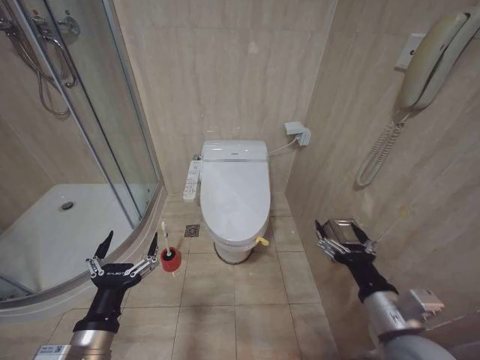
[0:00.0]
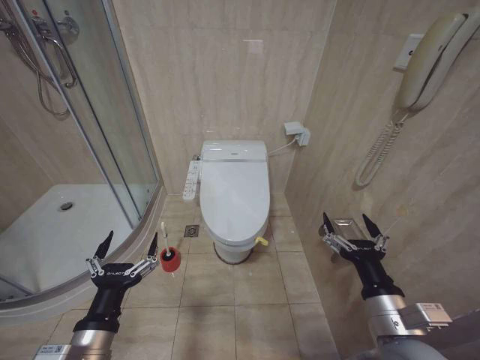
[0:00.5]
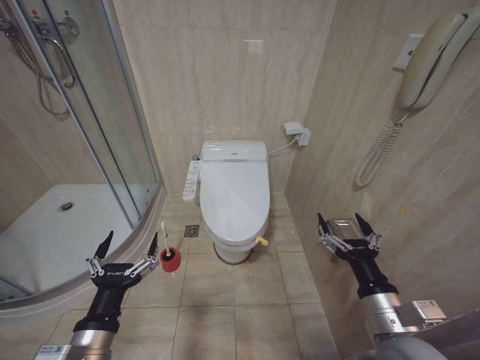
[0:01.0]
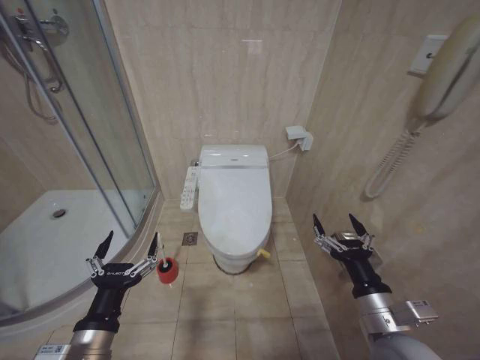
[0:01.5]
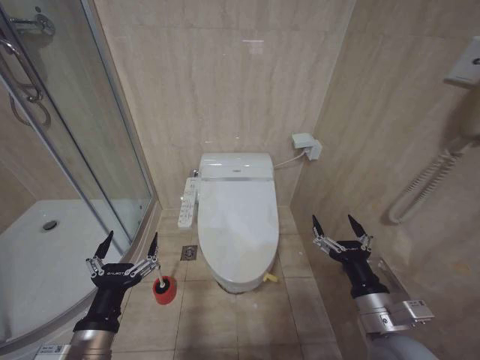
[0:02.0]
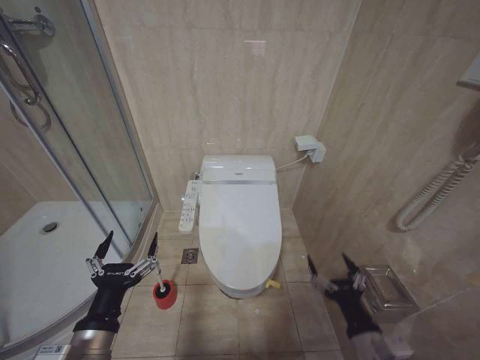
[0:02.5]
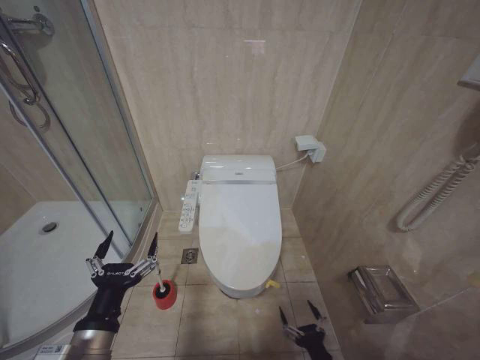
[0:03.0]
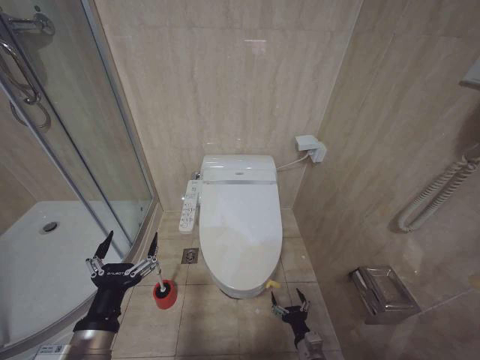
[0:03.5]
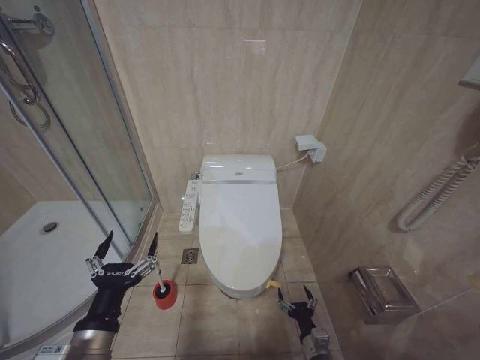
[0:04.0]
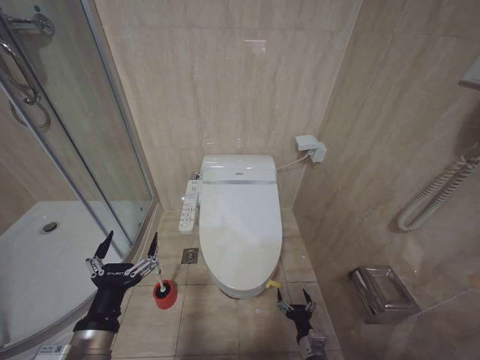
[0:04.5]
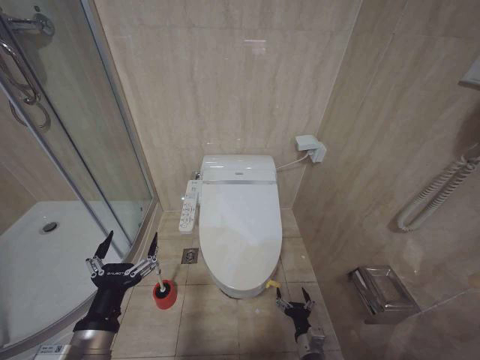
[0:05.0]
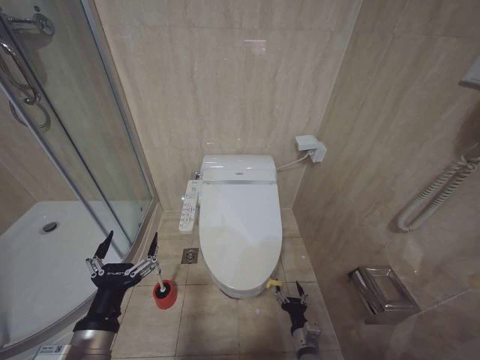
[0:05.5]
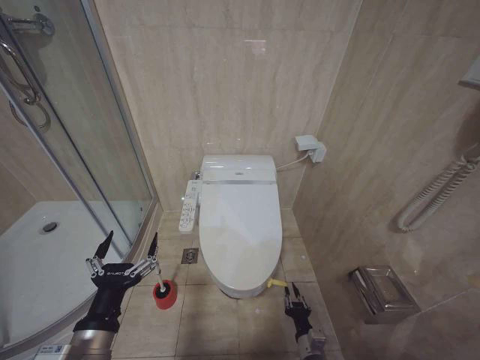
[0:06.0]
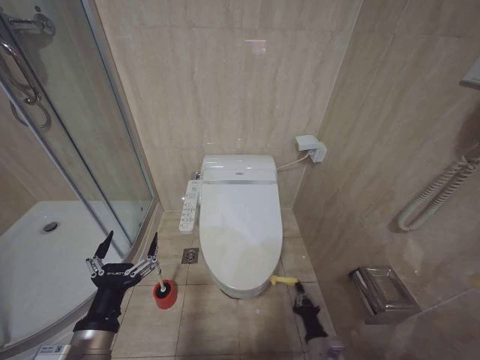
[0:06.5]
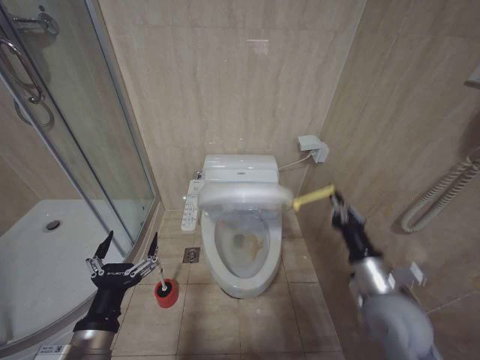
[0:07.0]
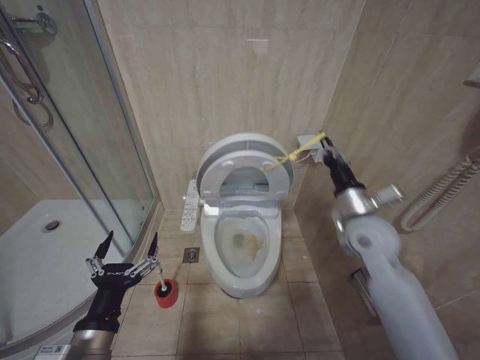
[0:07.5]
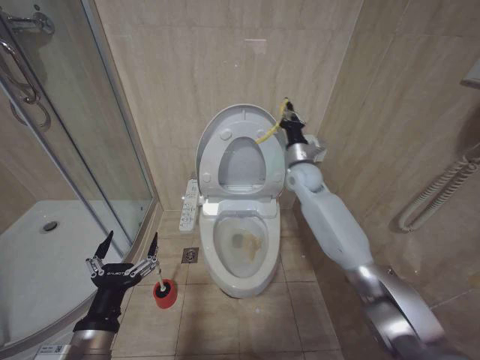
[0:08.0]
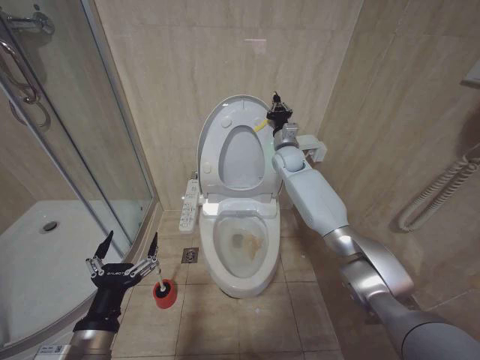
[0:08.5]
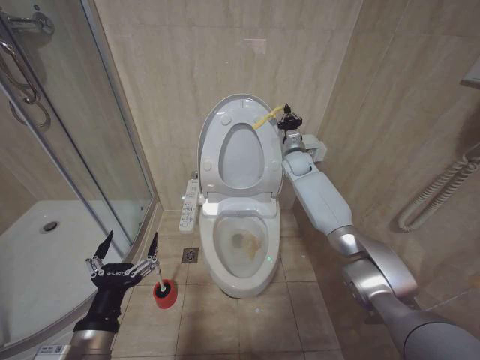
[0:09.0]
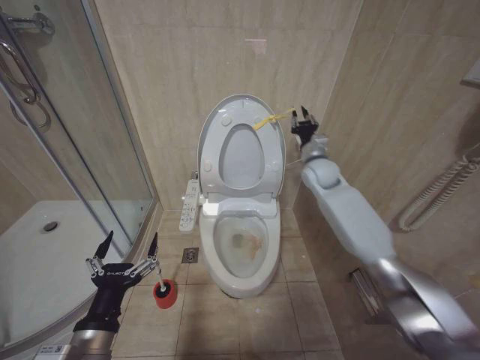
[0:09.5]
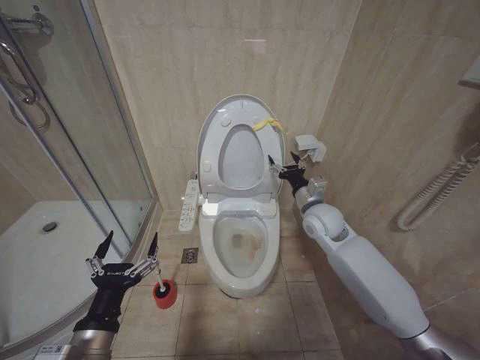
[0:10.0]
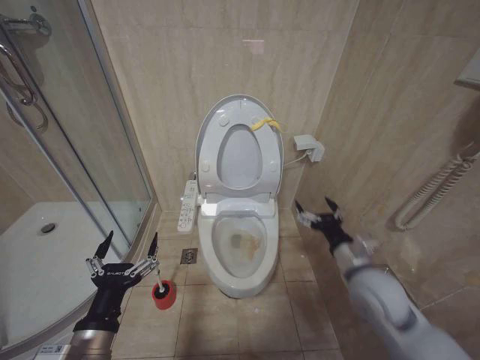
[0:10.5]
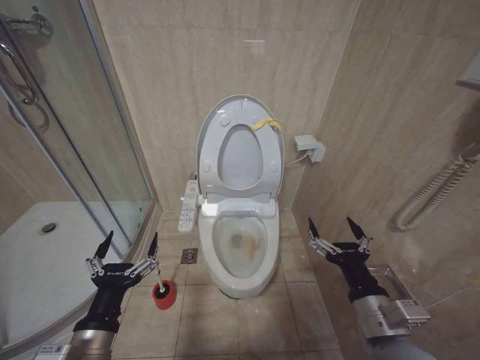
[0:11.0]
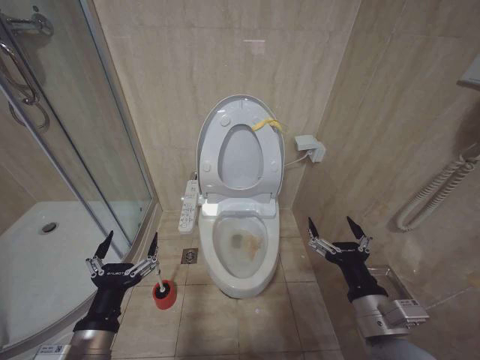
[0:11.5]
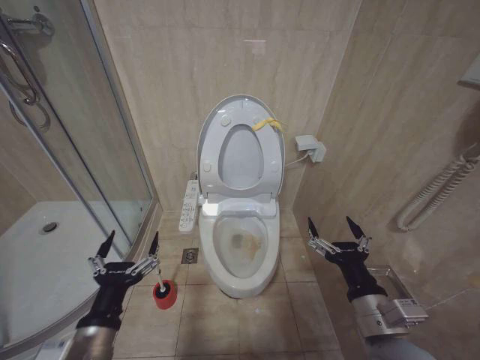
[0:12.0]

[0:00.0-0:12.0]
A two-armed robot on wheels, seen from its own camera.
Task of the whole recording: Open the toilet lid, clean the toilet bowl with a toilet brush, close the toilet lid, and flush.
2.0 to 4.0 s: The right gripper goes about 30 cm downward.
6.0 to 8.0 s: The right gripper is displaced upward and forward by some 50 cm, and closes up.
8.0 to 10.0 s: The right gripper goes about 10 cm backward and downward, and opens up.
10.0 to 12.0 s: The right gripper shifts approximately 30 cm backward.

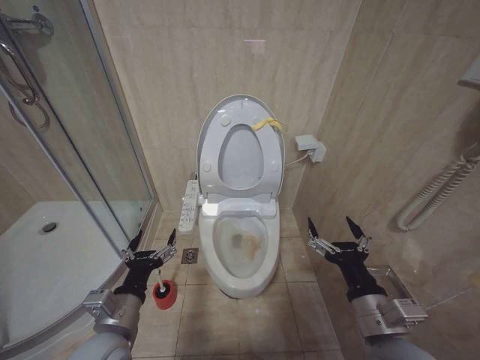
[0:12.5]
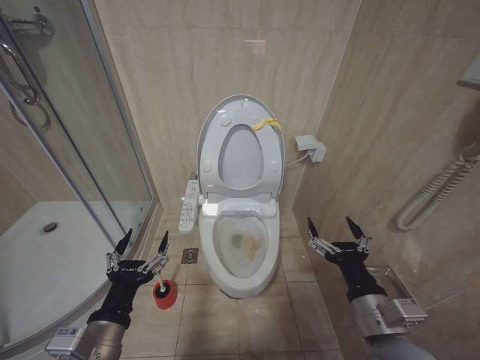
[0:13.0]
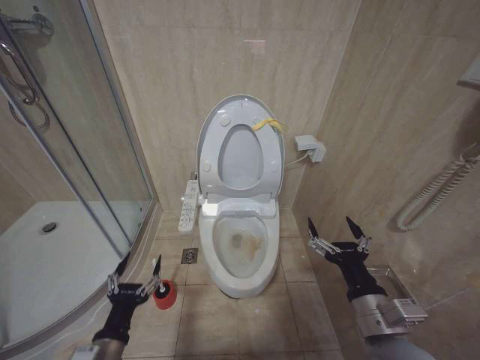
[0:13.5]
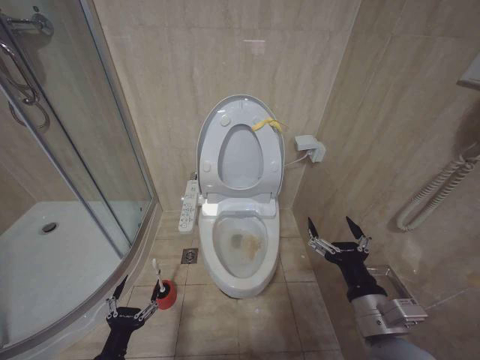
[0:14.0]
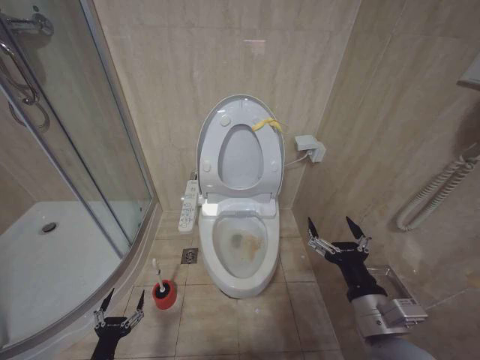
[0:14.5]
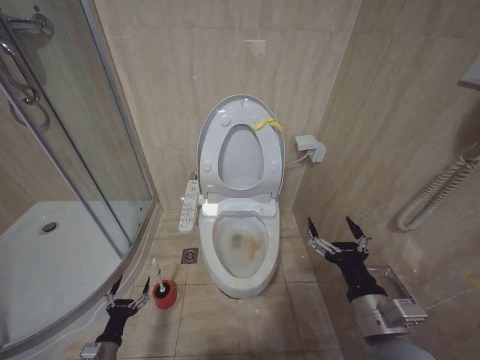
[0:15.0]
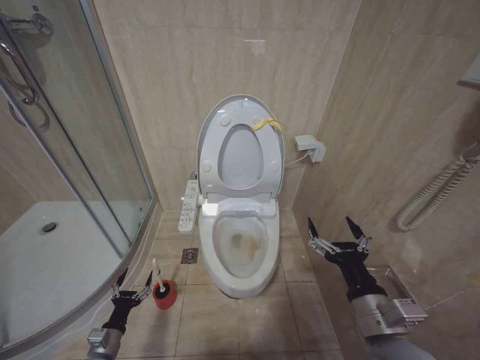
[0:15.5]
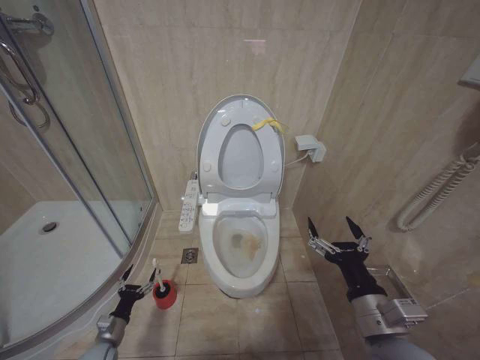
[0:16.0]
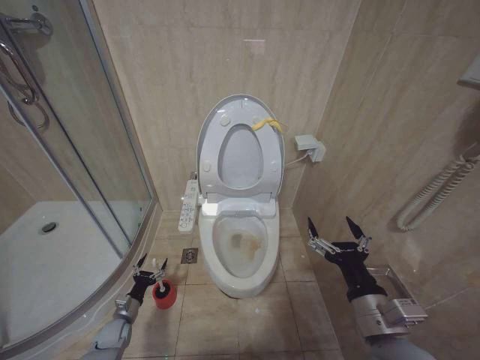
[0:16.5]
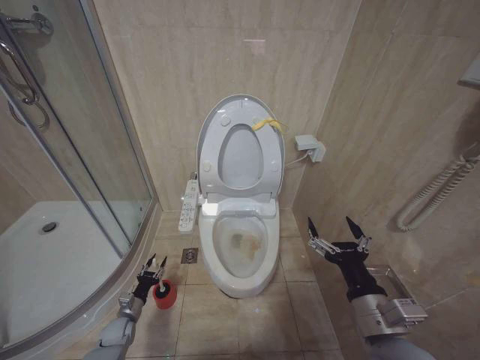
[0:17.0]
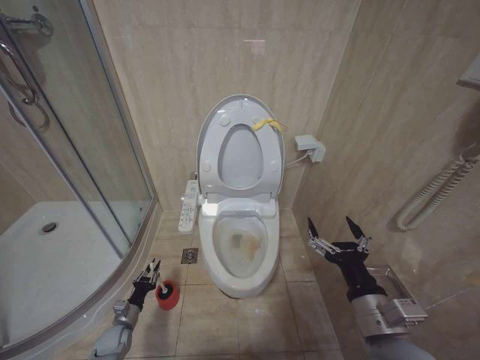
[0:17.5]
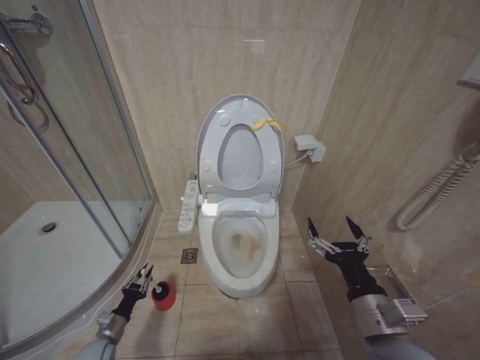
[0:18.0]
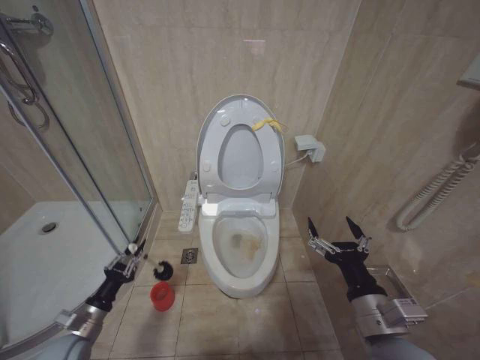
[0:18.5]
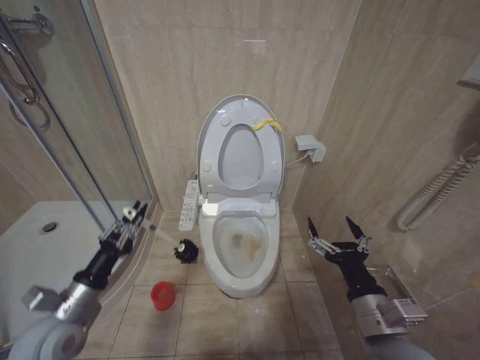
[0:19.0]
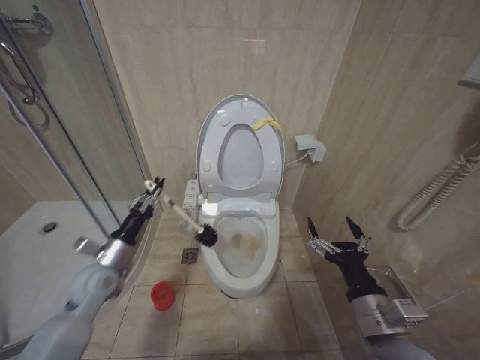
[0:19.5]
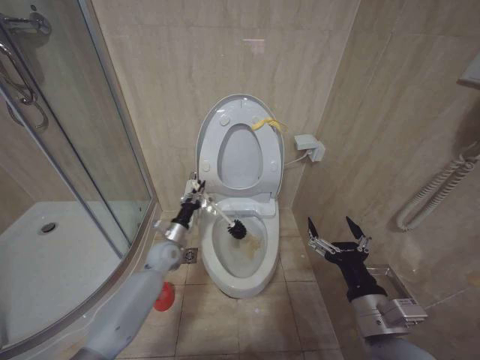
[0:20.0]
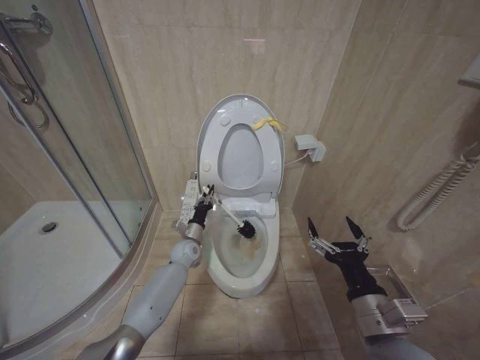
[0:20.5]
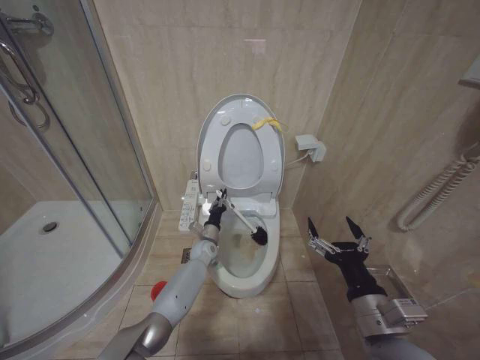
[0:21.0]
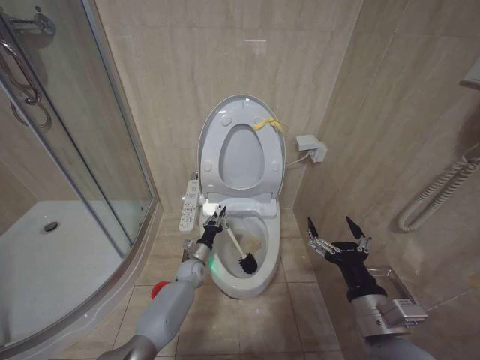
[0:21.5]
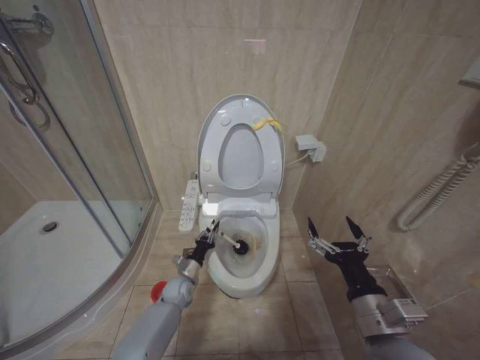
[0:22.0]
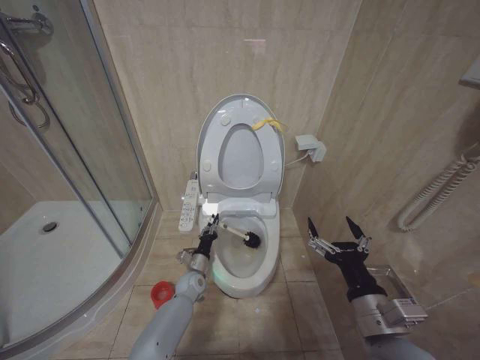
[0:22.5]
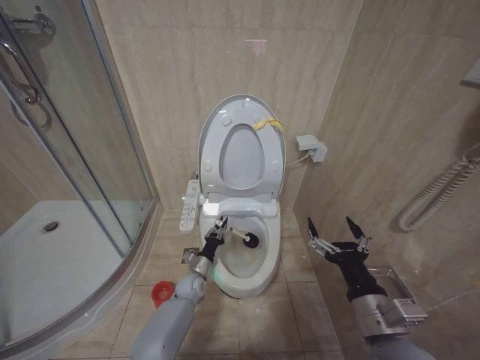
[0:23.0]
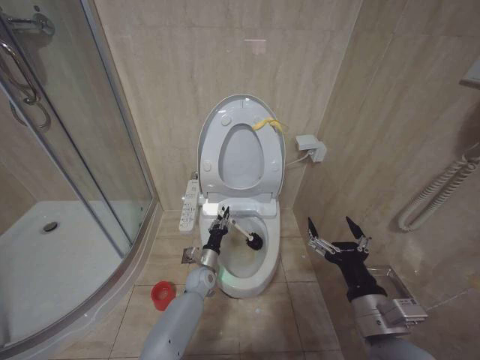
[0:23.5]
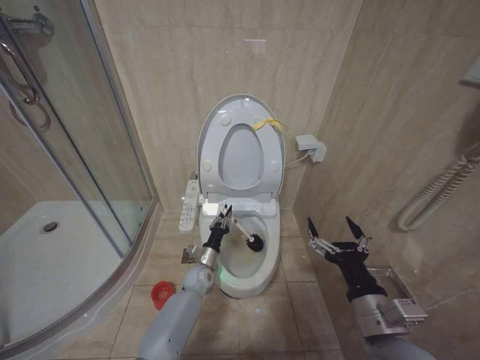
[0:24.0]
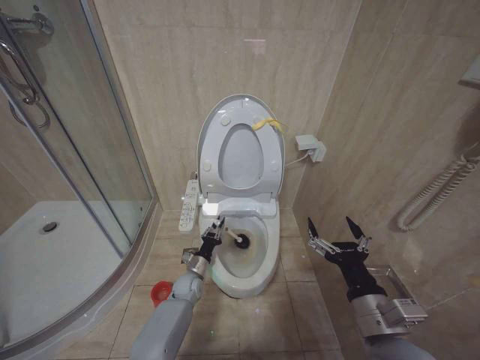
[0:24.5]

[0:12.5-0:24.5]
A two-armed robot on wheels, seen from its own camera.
Task of the whole recording: Open the toilet lid, clean the toilet bowl with a toilet brush, close the toilet lid, and flush.
12.5 to 14.5 s: The left gripper heads downward and to the left, covering roughly 25 cm.
14.5 to 16.5 s: The left gripper travels forward and downward by approximately 20 cm.
16.5 to 18.5 s: The left gripper shifts approximately 15 cm upward and backward, and closes its fingers.
18.5 to 20.5 s: The left gripper heads forward and to the right, covering about 35 cm.
20.5 to 22.5 s: The left gripper is displaced downward and backward by roughly 10 cm.

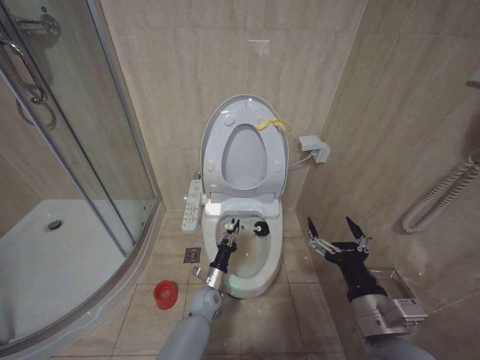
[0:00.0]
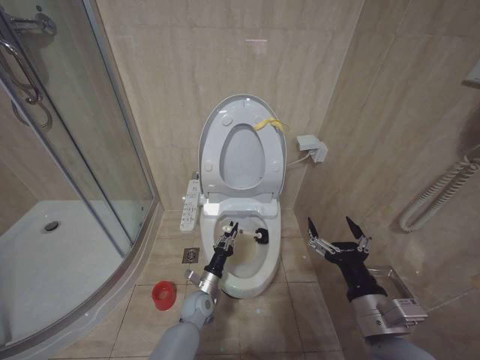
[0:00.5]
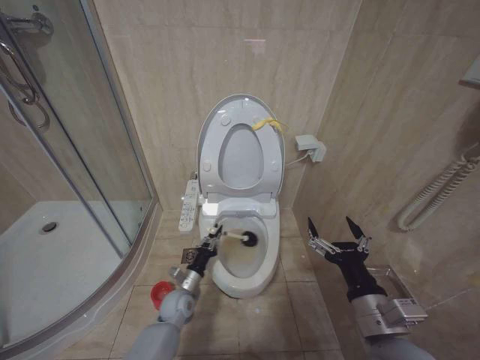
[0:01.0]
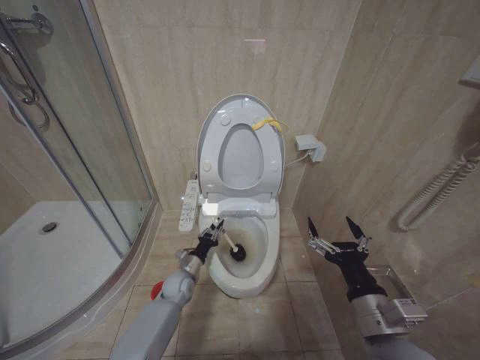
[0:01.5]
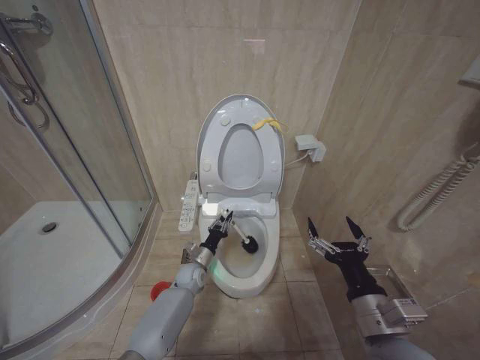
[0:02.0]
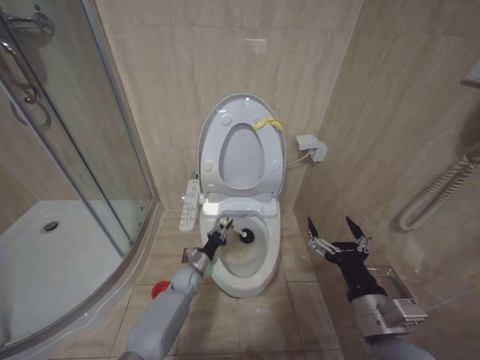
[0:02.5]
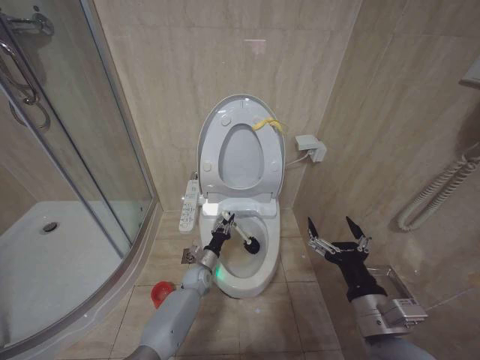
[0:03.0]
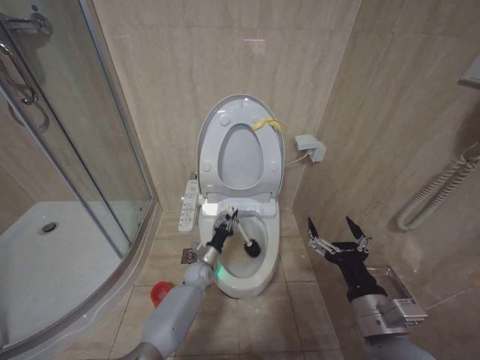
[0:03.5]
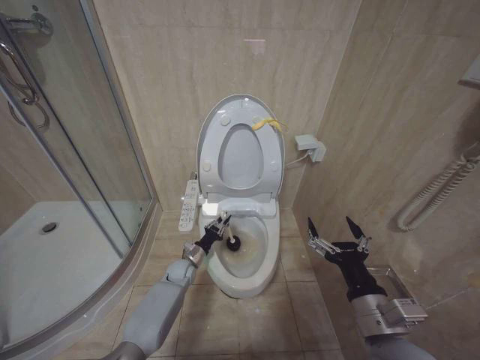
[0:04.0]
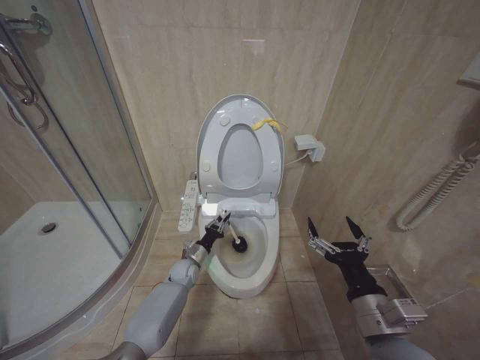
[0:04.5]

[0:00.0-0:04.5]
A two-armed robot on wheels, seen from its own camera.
Task of the whole recording: Open the toilet lid, clean the toilet bowl with a toilet brush, close the toilet lid, and flush.
0.0 to 2.0 s: The left gripper is displaced forward and to the left by approximately 10 cm.
2.0 to 4.5 s: There are only small adjustments of the grippers.
